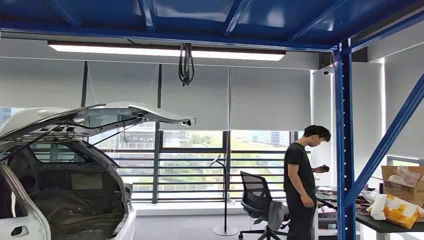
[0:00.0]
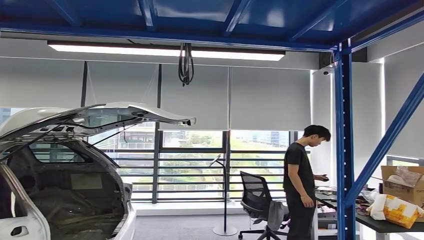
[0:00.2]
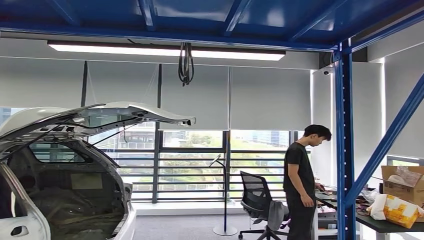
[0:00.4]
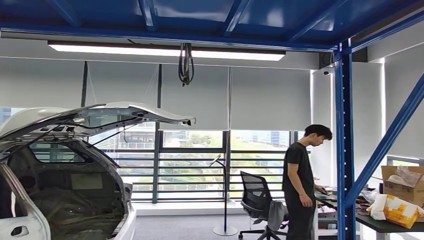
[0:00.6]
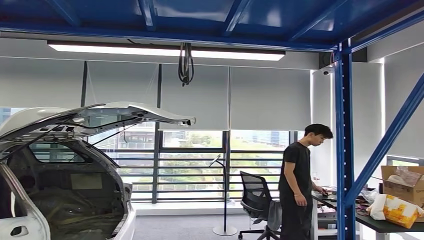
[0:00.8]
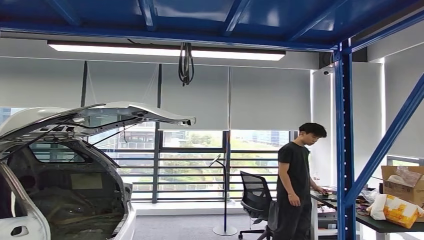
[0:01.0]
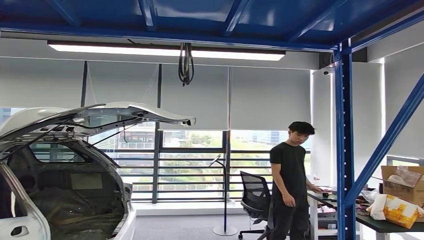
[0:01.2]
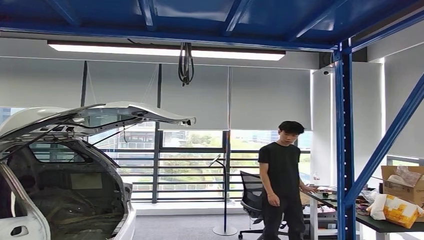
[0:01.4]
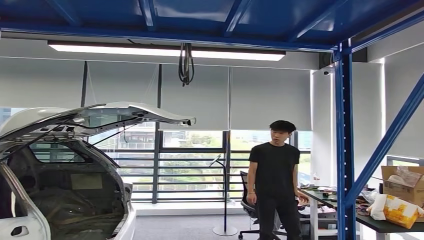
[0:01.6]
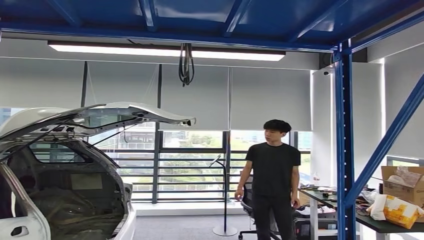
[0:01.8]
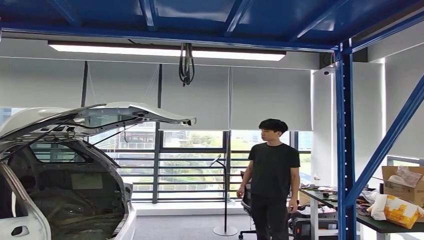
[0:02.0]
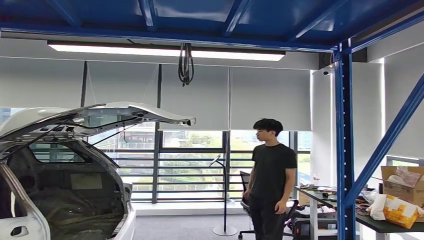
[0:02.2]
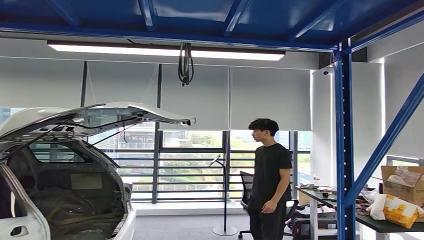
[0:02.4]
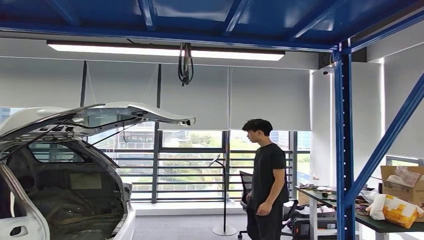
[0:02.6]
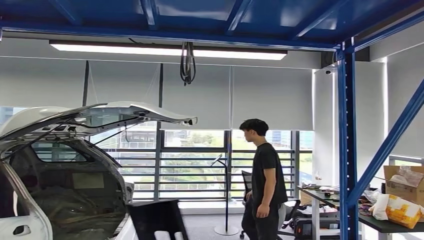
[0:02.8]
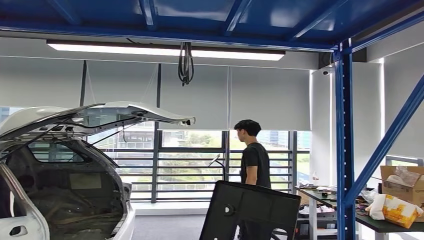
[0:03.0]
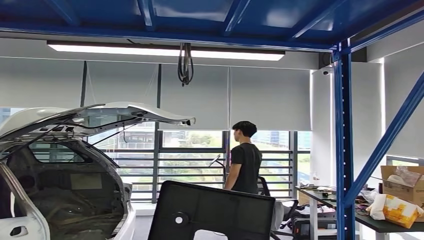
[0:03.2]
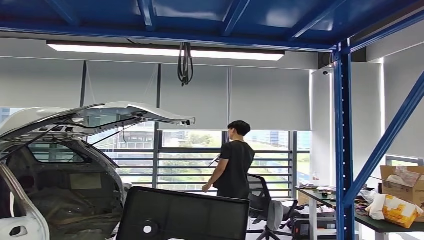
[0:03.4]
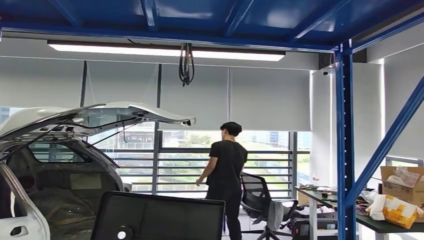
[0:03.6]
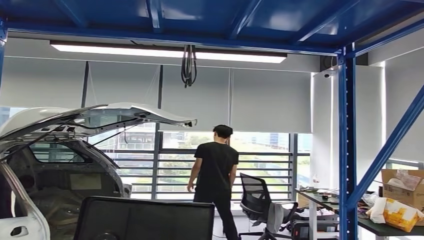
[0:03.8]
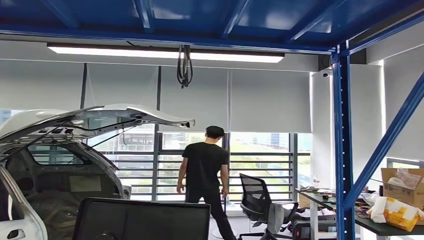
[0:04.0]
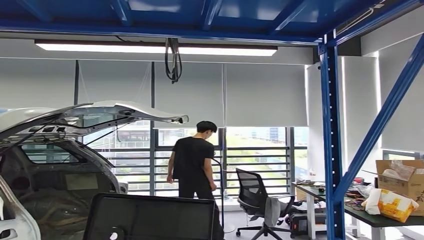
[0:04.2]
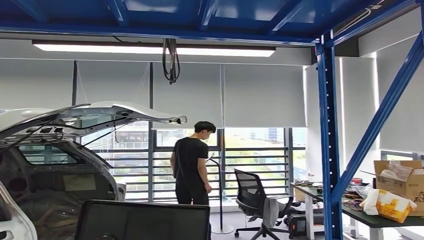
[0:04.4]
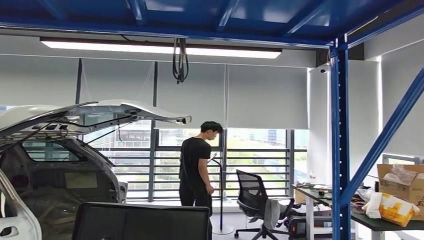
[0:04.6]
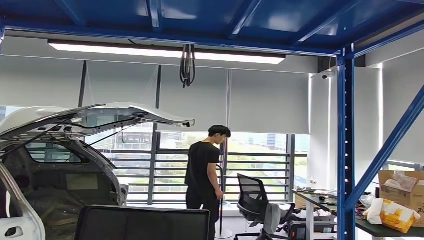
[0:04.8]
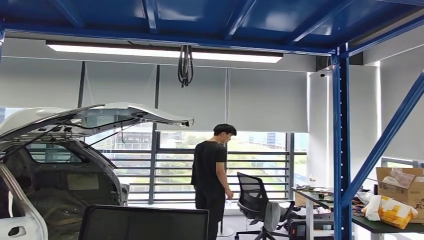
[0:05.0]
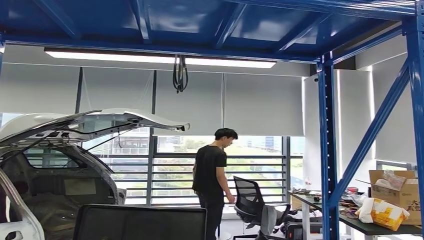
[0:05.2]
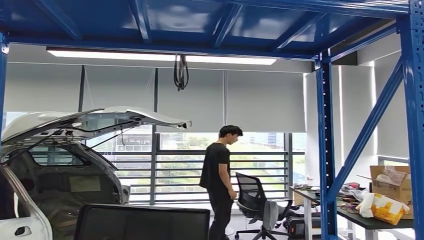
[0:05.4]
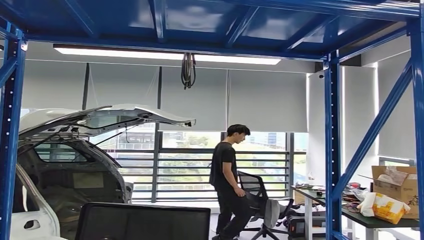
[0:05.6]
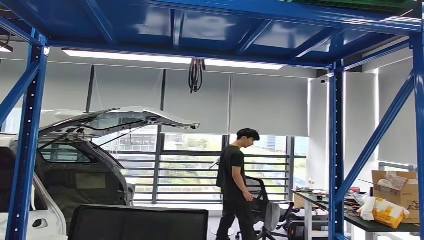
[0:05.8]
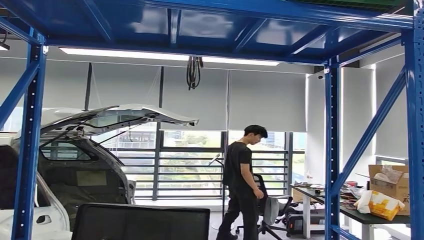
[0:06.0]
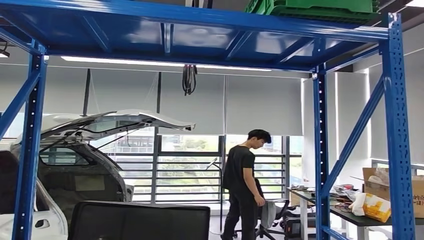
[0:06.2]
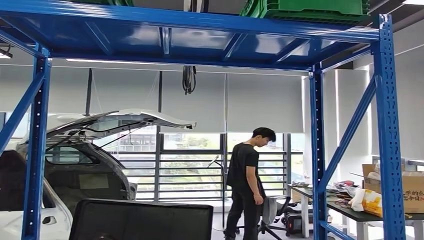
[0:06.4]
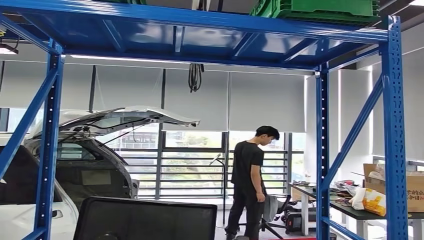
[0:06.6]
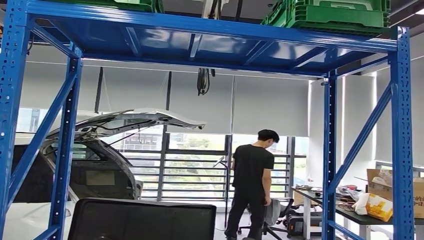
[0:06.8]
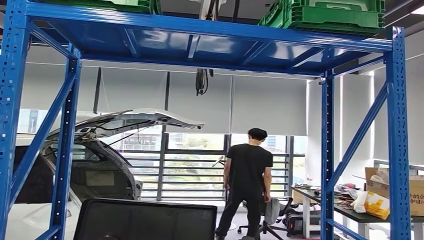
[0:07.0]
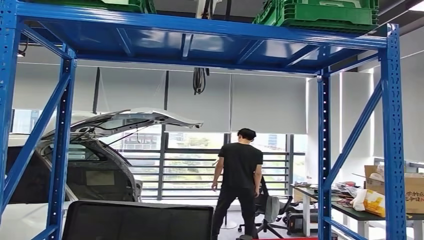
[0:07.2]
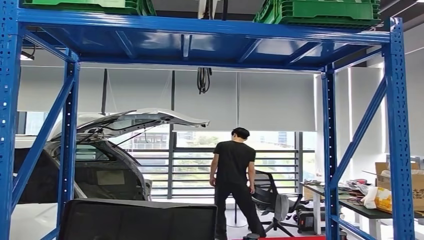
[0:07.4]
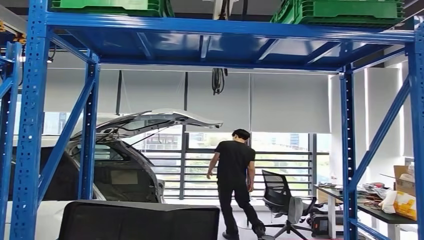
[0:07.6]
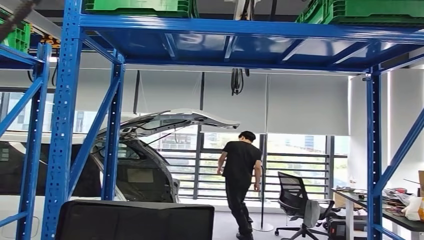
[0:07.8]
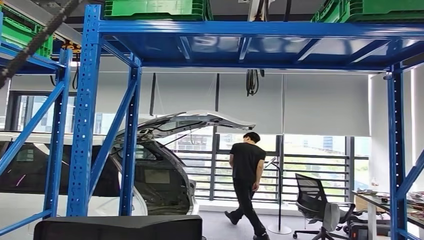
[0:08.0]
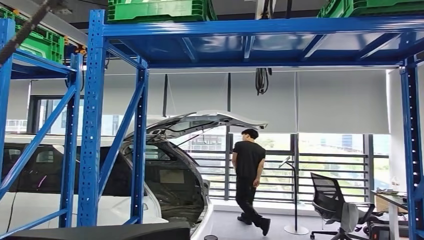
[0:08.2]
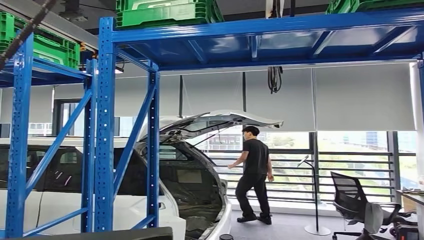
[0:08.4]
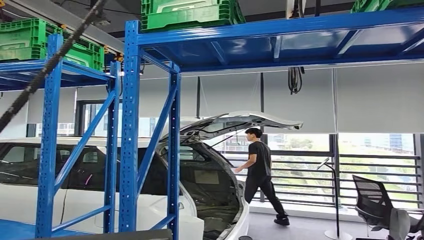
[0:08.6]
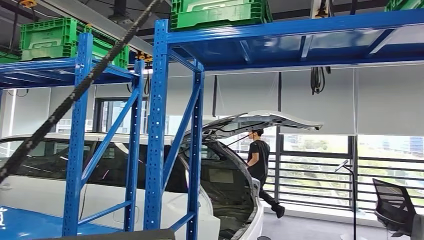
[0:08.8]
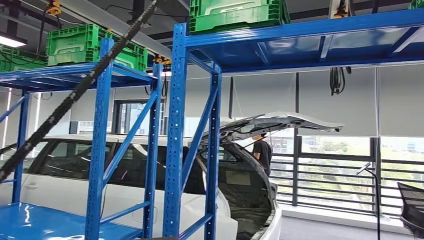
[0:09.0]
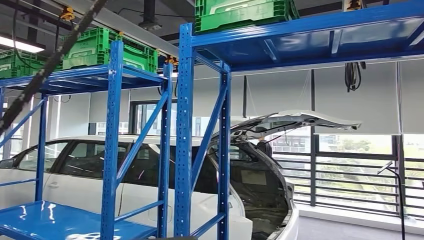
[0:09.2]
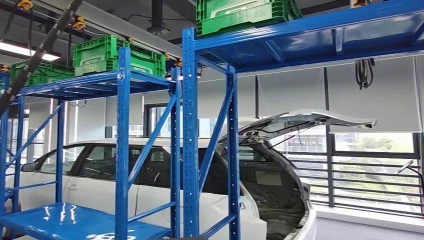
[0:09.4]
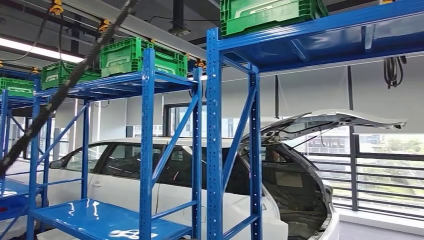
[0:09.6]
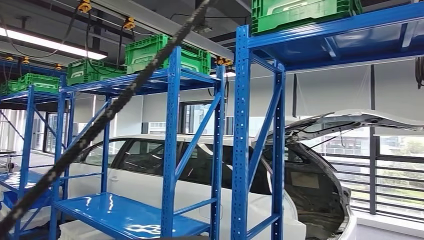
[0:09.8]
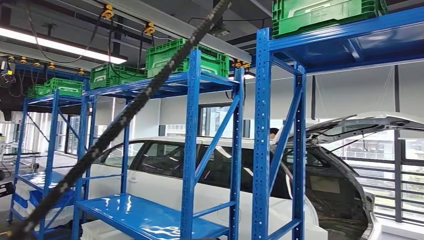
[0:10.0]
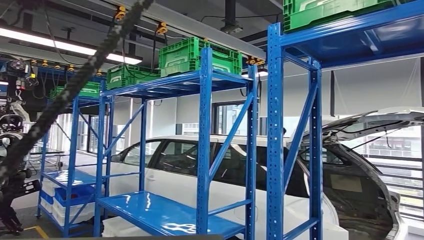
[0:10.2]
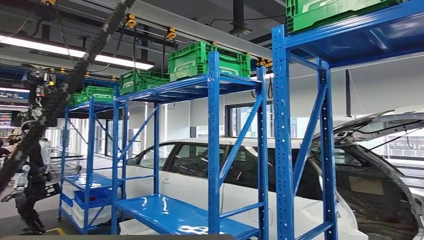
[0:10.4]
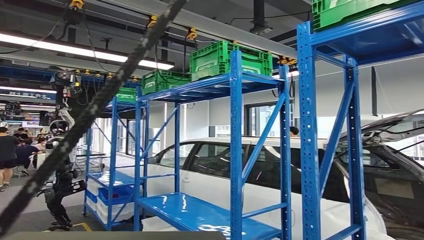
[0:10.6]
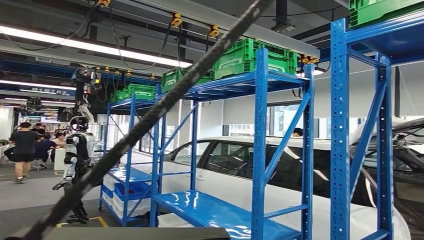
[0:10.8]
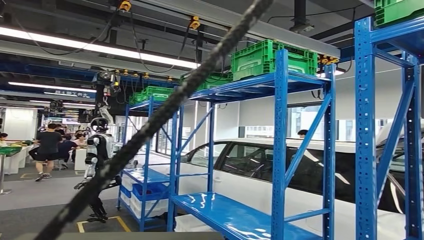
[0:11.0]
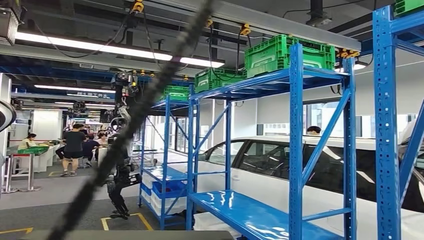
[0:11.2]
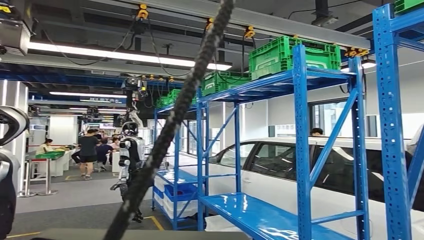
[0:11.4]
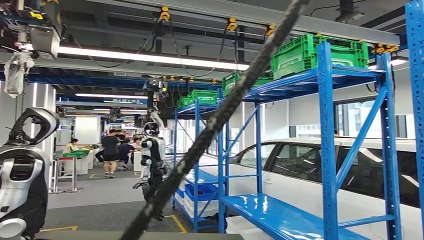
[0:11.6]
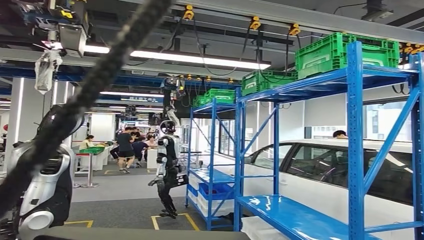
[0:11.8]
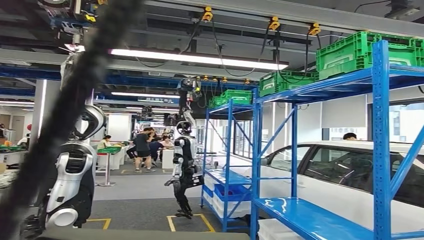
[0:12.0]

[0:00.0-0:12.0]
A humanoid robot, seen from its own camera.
Step, 0:00.0 to 0:04.2: Pick up the small component from the shelf.
0:01.6 to 0:03.0: The right hand travels backward by some 10 cm.

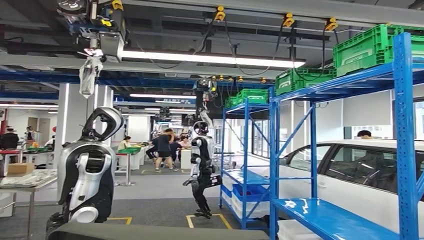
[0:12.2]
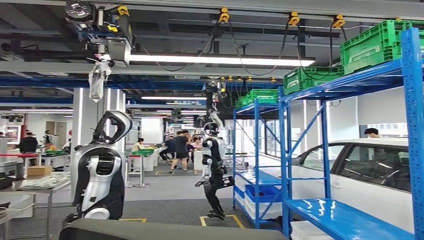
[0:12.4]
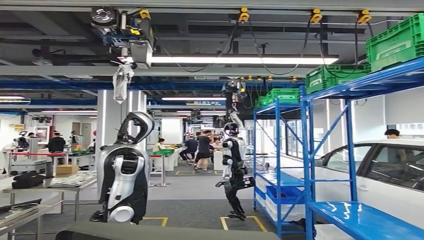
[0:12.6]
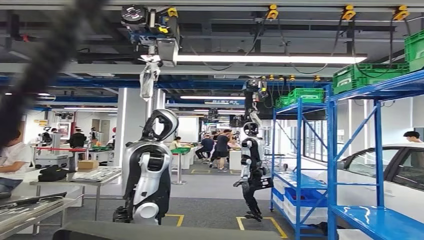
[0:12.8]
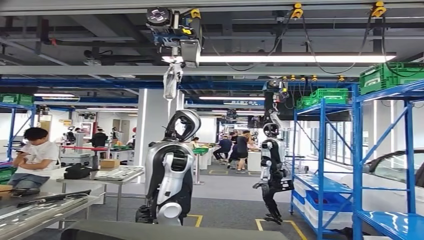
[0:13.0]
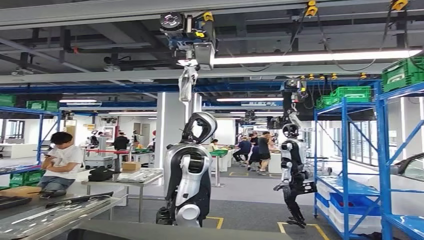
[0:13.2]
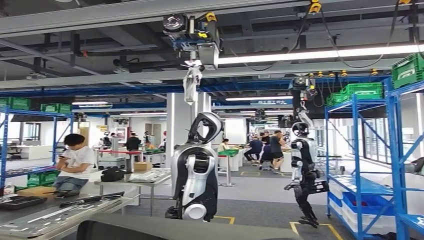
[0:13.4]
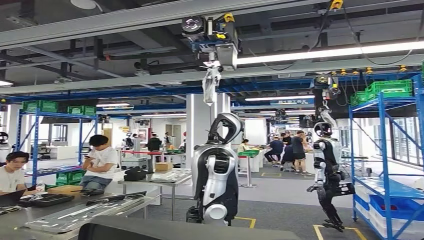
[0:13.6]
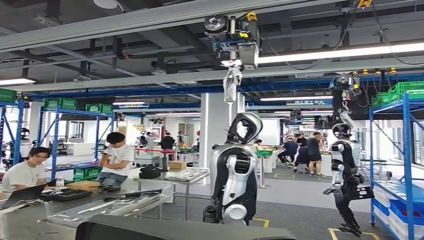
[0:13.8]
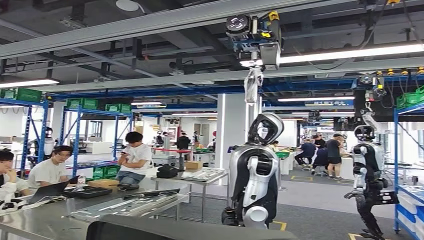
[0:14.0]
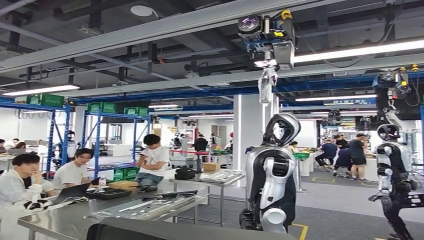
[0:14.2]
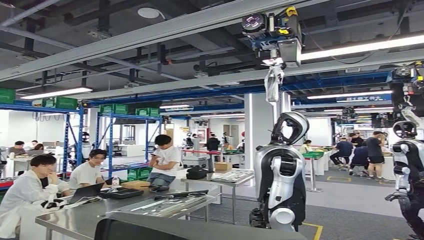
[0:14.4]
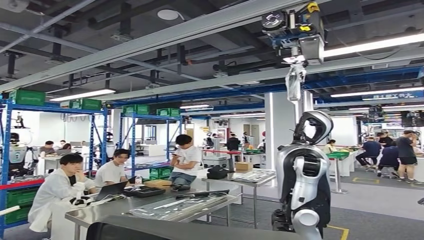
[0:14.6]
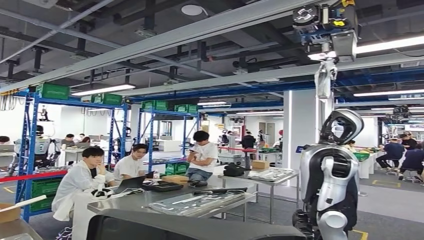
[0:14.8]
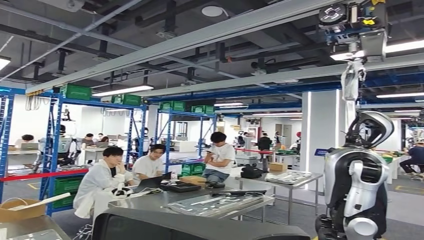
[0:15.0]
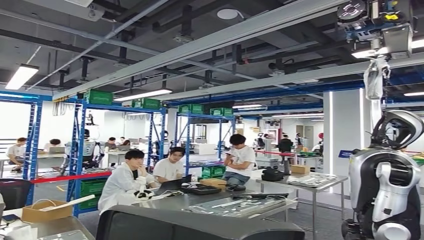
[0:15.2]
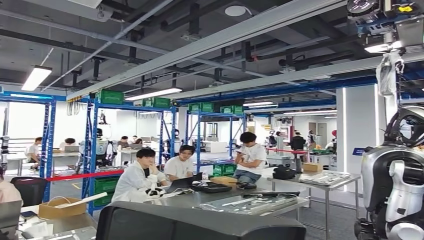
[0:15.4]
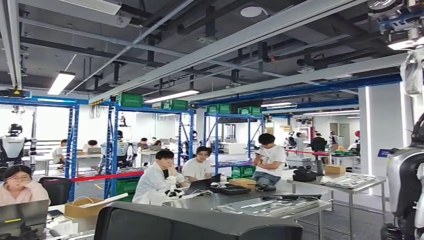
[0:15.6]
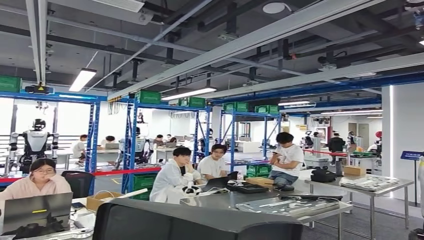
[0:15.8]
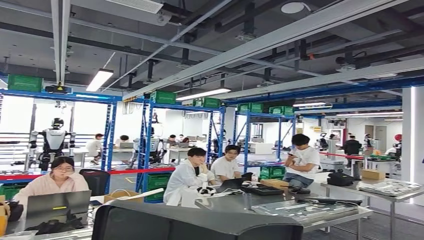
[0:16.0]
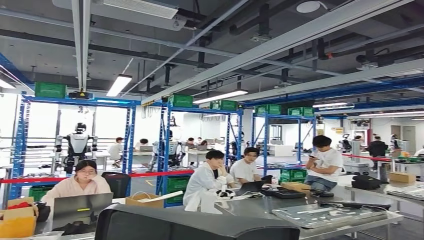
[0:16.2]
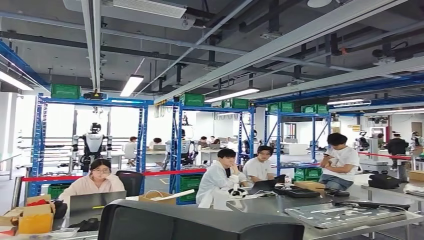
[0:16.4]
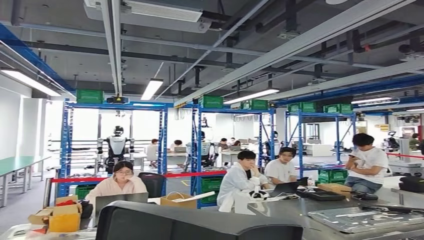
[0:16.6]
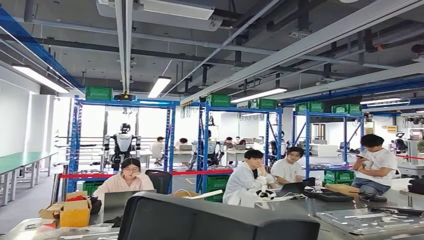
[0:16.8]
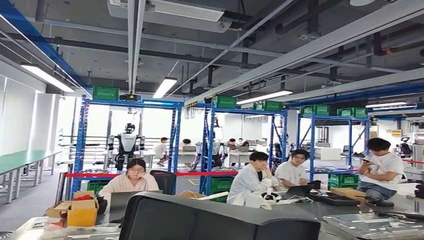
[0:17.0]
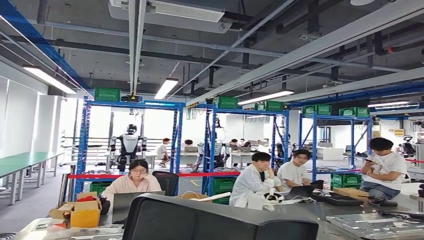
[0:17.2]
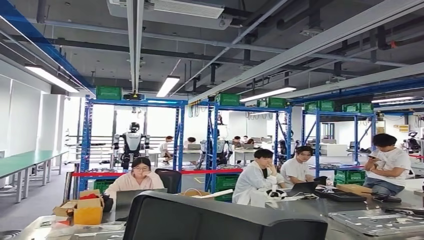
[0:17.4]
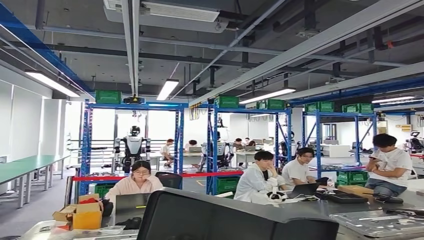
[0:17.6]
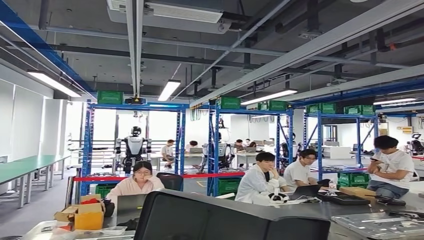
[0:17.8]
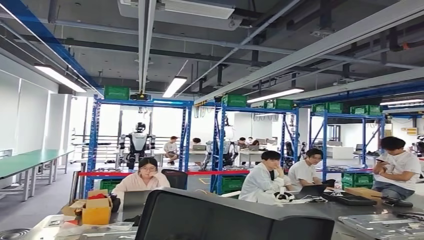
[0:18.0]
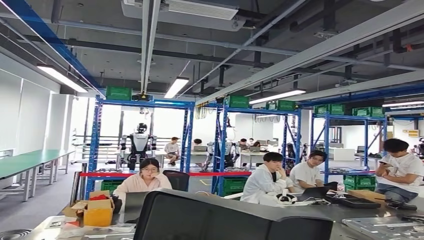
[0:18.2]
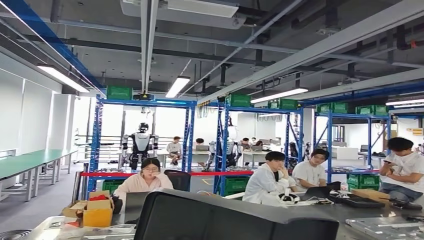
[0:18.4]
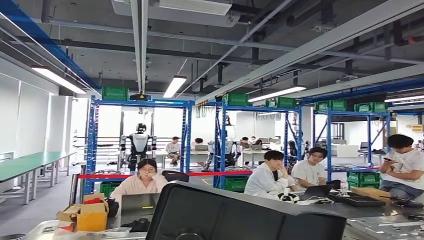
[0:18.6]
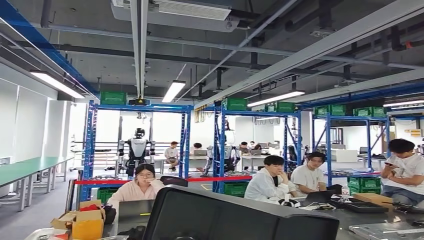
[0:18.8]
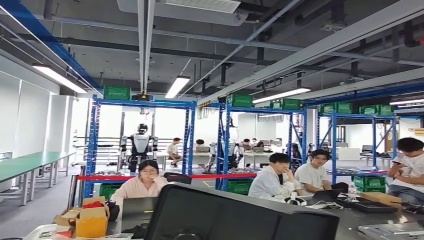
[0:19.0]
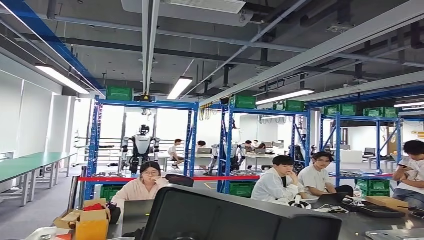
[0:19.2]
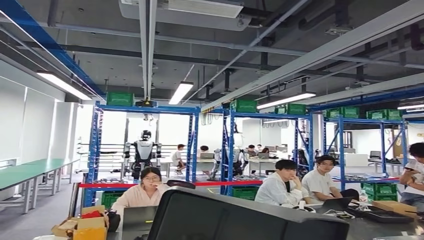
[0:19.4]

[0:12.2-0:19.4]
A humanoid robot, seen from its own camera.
Step, 0:12.2 to 0:18.8: Bring the small component to the front of the workbench.
